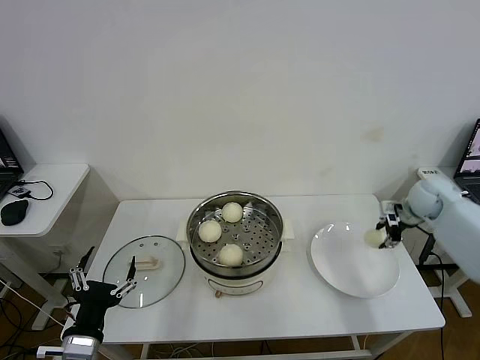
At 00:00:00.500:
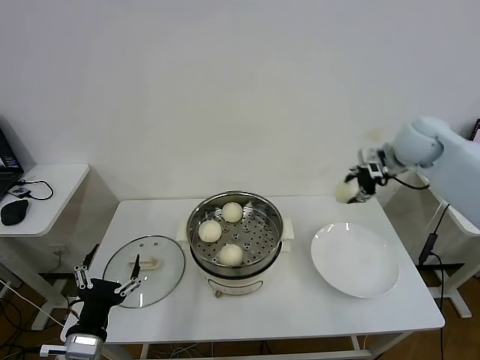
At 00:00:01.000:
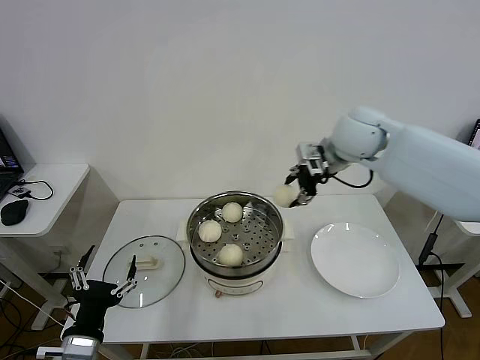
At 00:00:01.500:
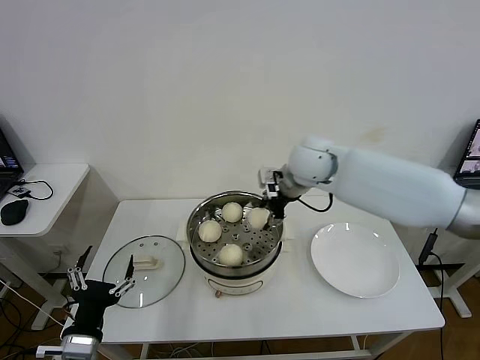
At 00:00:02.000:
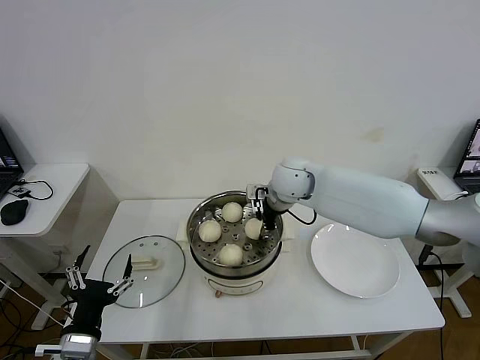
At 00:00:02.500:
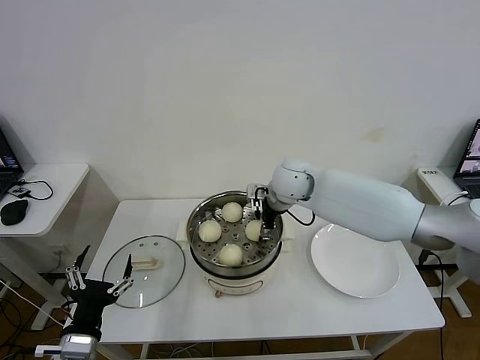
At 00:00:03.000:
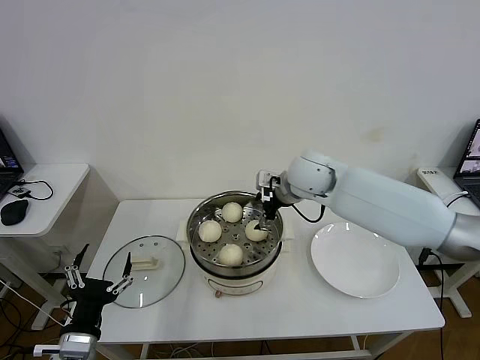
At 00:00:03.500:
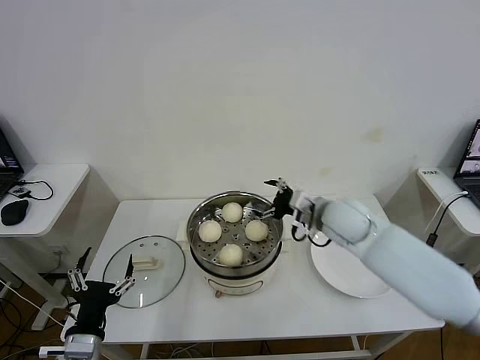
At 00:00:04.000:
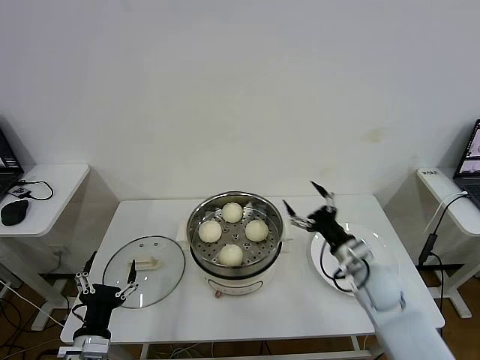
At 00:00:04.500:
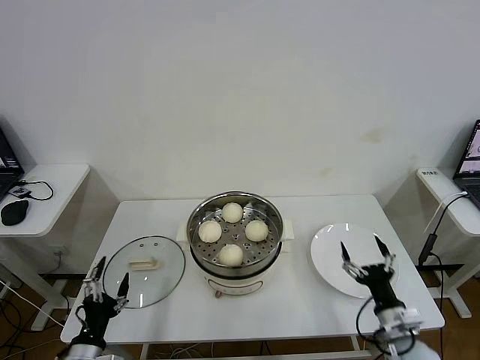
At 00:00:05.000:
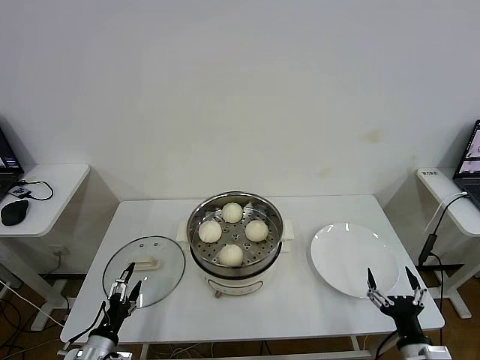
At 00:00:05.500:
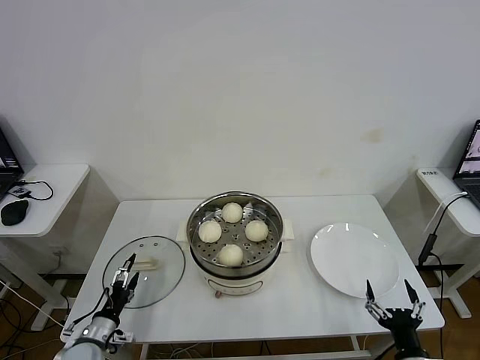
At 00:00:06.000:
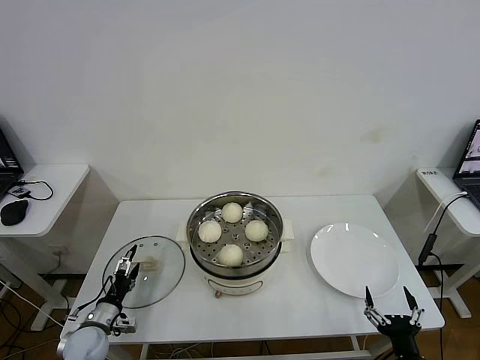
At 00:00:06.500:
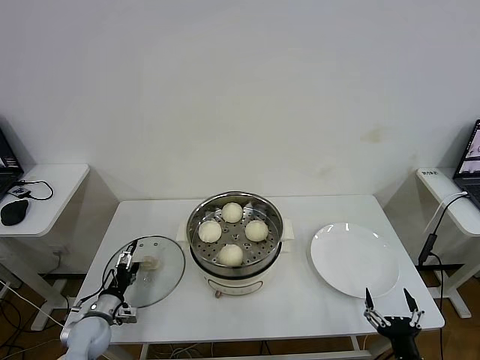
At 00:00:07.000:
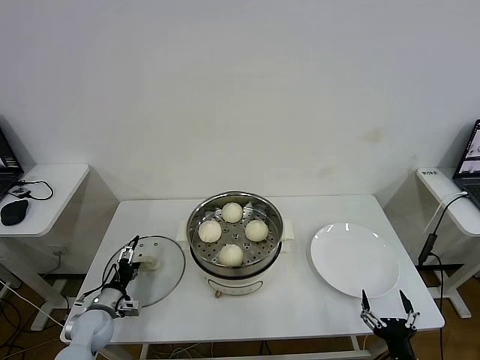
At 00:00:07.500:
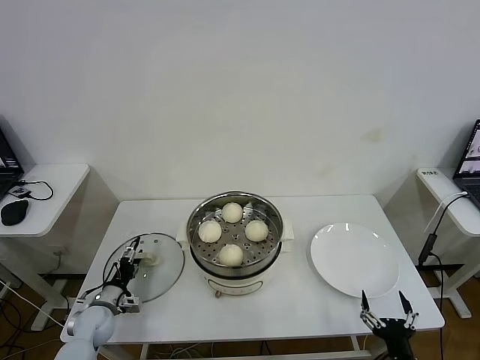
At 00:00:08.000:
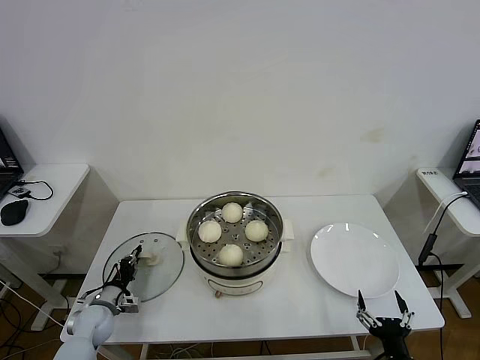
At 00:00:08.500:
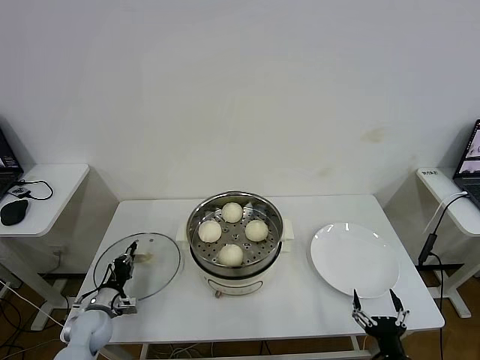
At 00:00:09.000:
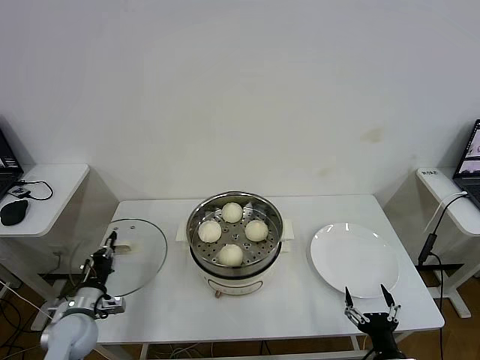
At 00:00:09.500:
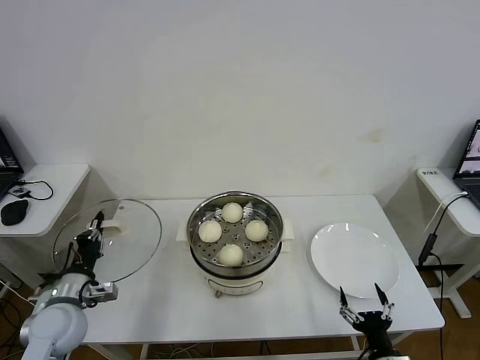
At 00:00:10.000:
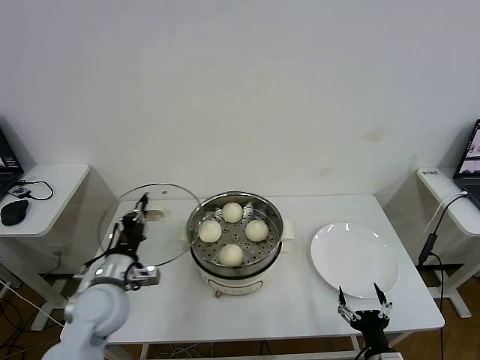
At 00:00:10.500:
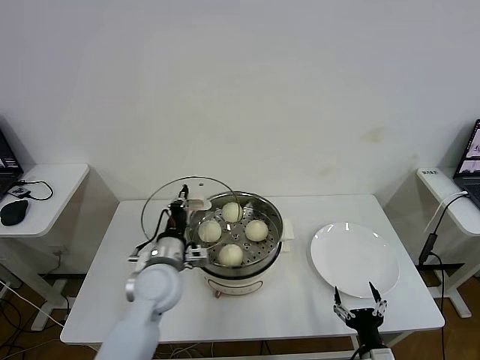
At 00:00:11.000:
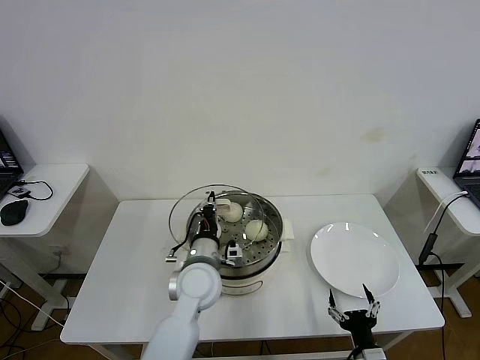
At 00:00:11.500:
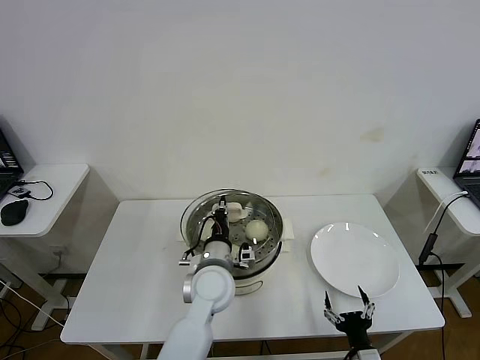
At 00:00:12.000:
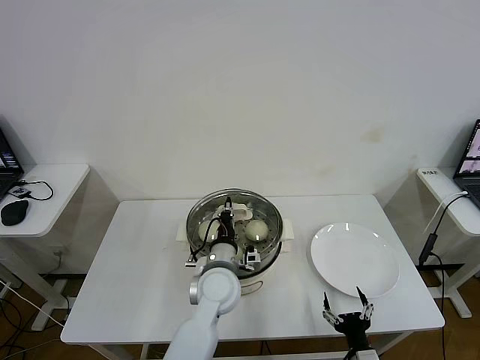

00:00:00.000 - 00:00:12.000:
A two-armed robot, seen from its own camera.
Task of the whole recording: take steamed baozi put them in steamer then cover it.
Step, 00:00:00.000 - 00:00:02.500: Place the baozi on the steamer with right gripper.
Step, 00:00:03.000 - 00:00:08.000: Grasp the pot lid with left gripper.
00:00:00.000 - 00:00:02.000: The right gripper shifts about 35 cm to the left.
00:00:02.000 - 00:00:04.000: The right gripper moves to the right, backward and downward, about 30 cm, and opens up.
00:00:04.000 - 00:00:06.000: The right gripper heads backward, covering approximately 25 cm; the left gripper moves downward, forward and to the left, approximately 20 cm.
00:00:06.000 - 00:00:08.000: The left gripper goes about 5 cm forward, and closes its fingers.
00:00:08.000 - 00:00:10.000: The left gripper travels upward and to the right by approximately 25 cm.
00:00:10.000 - 00:00:12.000: The left gripper travels to the right by approximately 25 cm.

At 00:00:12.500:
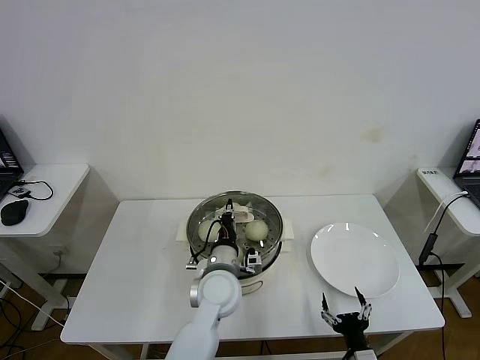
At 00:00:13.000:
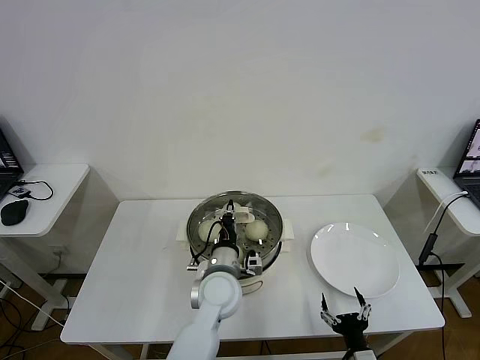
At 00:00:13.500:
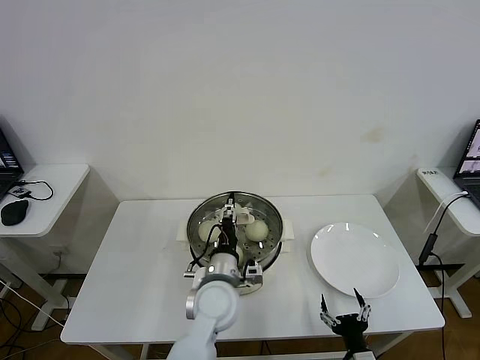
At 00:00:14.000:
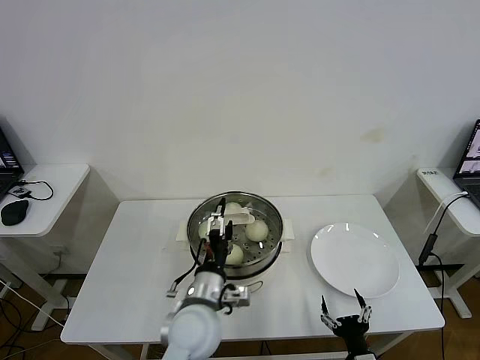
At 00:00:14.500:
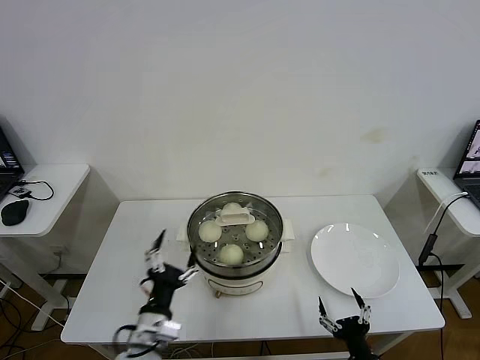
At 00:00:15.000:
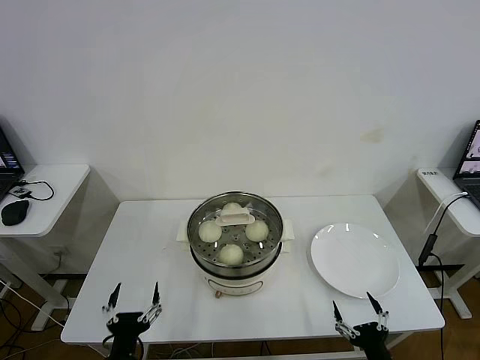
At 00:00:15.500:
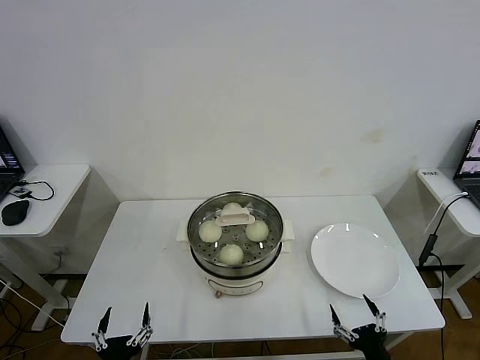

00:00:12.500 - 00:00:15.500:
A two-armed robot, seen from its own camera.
Task of the whole recording: take steamed baozi put them in steamer then cover it.
00:00:12.500 - 00:00:14.000: The left gripper shifts approximately 5 cm backward, and opens its fingers.
00:00:14.000 - 00:00:15.500: The left gripper moves backward, to the left and downward, about 30 cm, while the right gripper changes place by roughly 5 cm.
